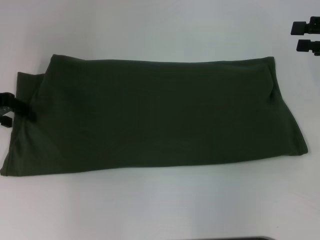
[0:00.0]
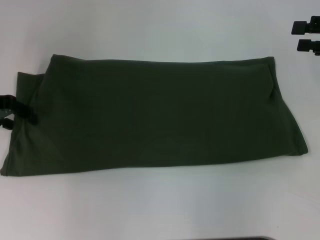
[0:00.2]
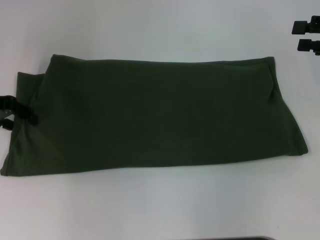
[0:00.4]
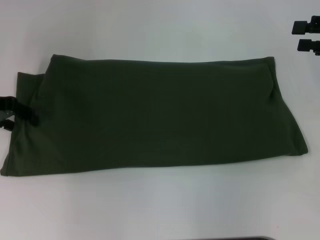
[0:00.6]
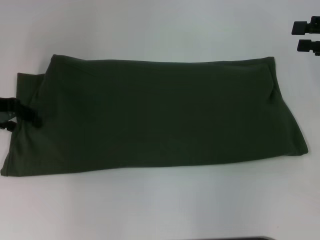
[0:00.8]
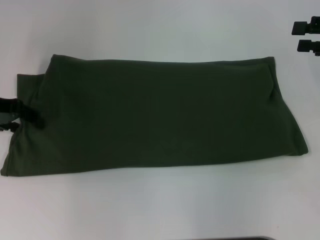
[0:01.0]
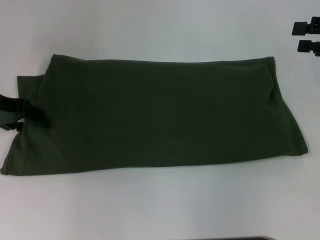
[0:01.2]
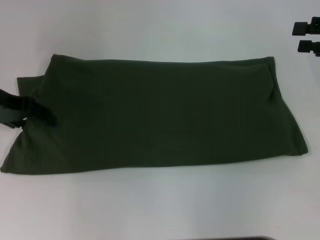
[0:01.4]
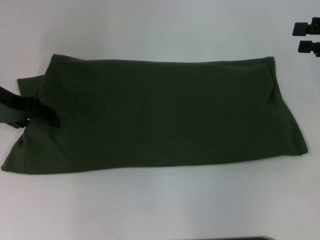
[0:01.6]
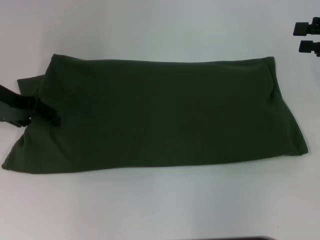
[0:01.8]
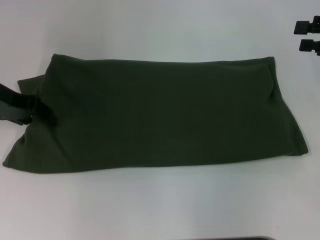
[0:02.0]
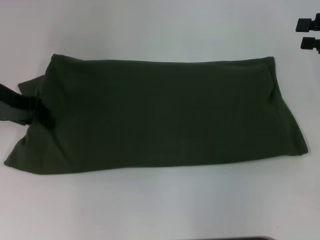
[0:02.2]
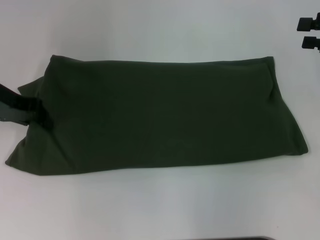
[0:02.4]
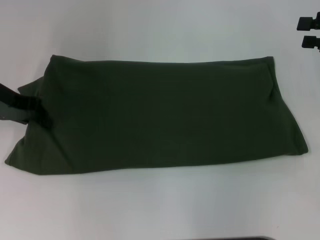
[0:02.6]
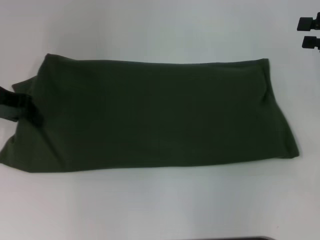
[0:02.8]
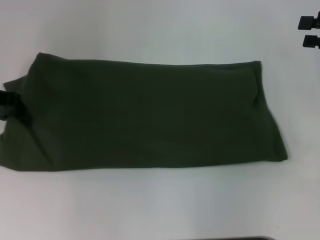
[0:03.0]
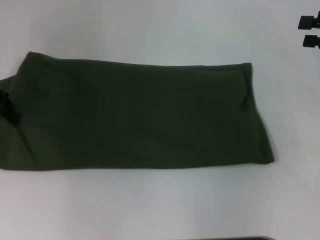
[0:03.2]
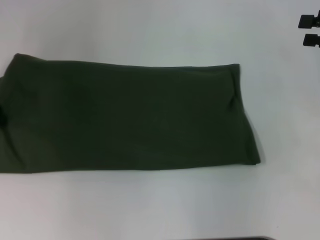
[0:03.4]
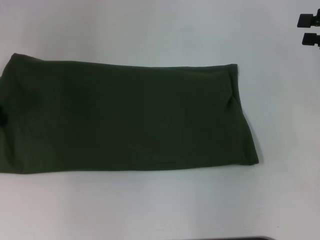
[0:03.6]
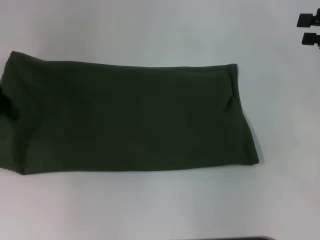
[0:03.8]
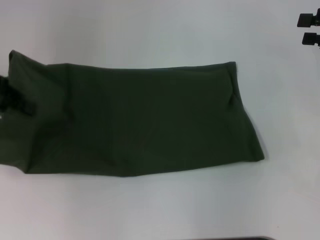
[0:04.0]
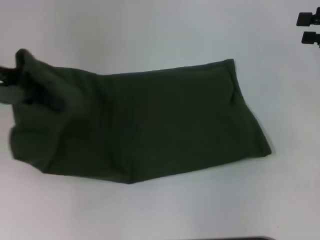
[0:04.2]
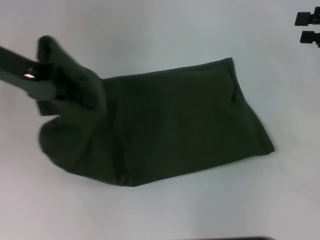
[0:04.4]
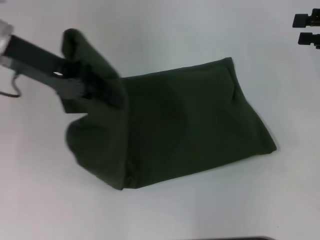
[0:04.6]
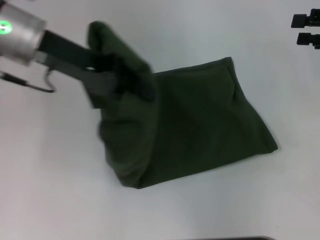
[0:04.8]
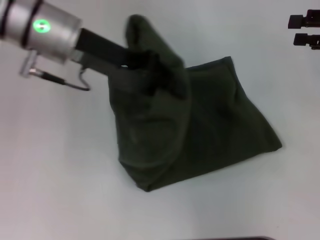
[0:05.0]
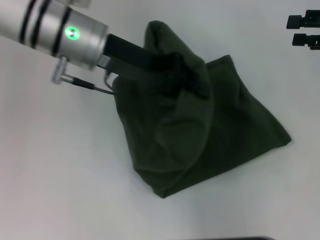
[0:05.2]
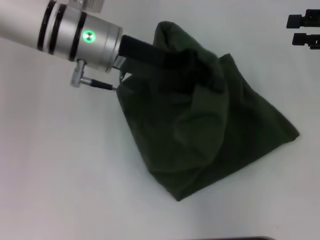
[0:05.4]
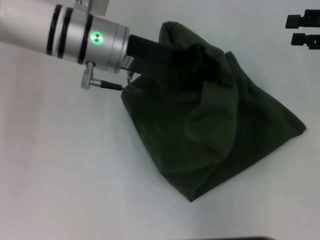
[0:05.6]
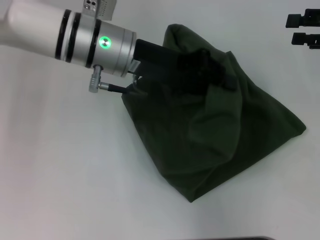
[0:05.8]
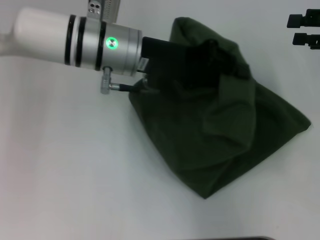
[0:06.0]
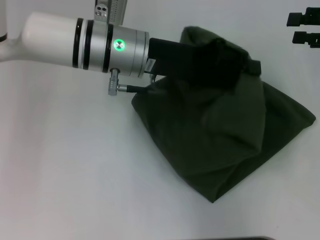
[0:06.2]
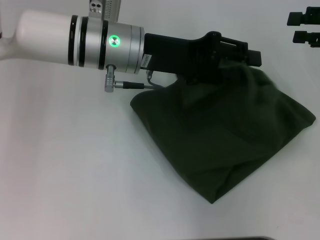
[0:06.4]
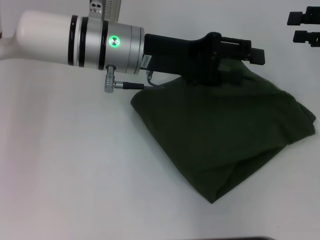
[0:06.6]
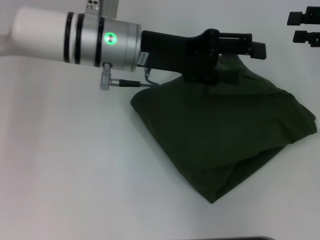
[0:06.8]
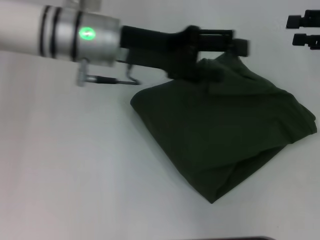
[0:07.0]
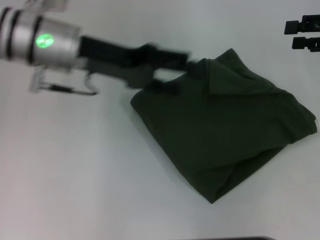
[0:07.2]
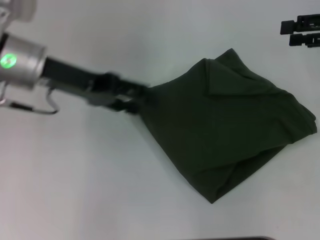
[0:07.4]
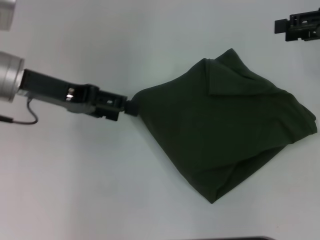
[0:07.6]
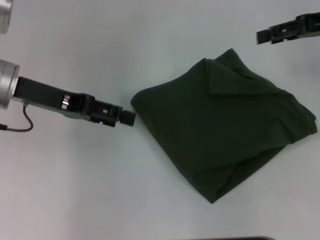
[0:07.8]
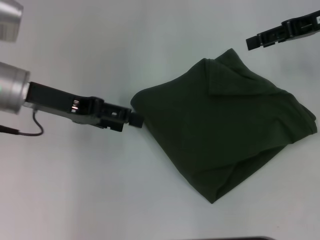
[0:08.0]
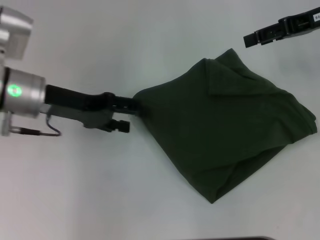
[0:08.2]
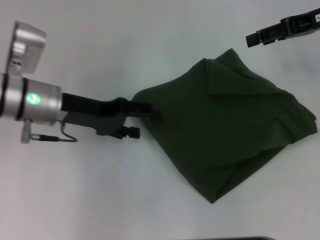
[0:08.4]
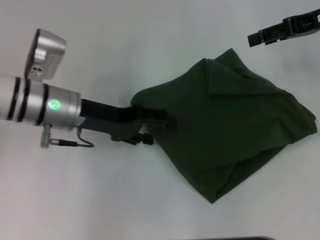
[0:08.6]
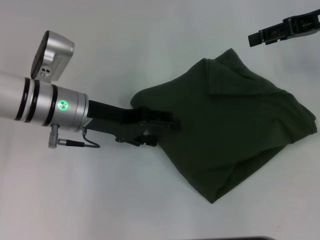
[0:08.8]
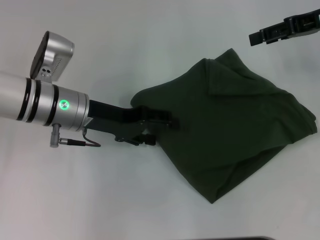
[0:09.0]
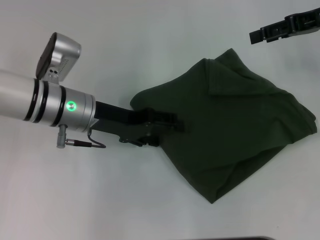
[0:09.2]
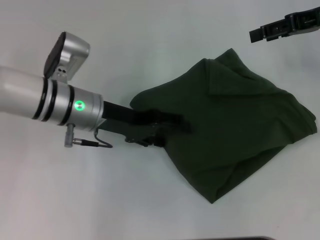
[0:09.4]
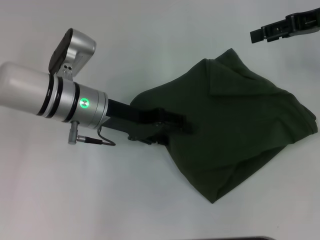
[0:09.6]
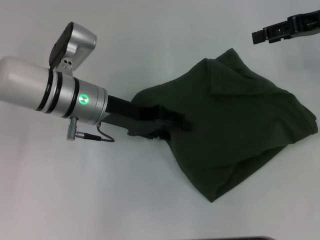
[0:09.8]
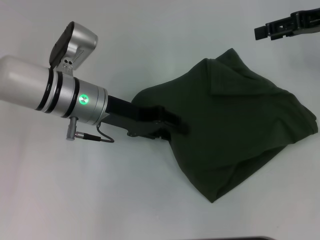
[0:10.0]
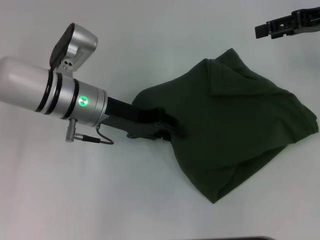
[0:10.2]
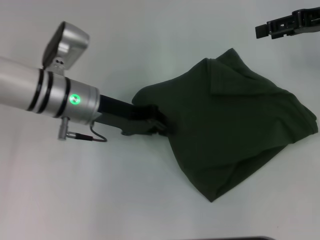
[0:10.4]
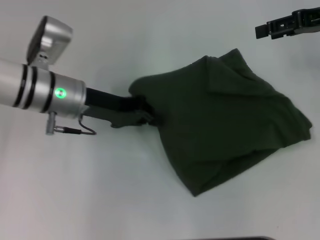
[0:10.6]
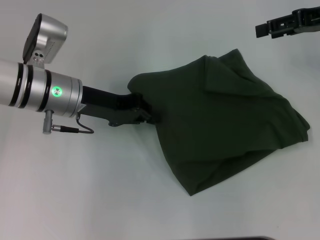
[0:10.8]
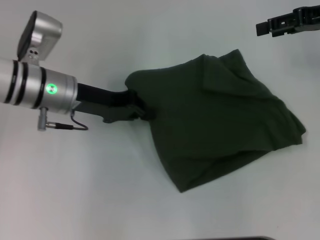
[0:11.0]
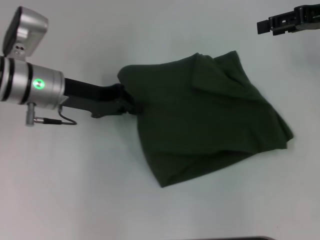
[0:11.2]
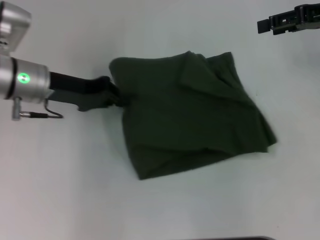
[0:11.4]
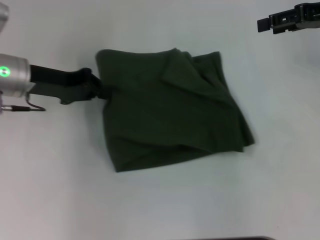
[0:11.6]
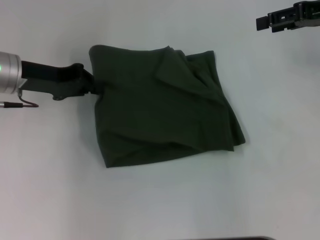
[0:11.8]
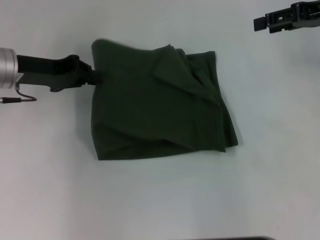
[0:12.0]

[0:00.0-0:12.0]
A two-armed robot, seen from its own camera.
Step, 0:00.0 to 0:06.6: Fold the clothes with your left hand.
0:00.0 to 0:01.6: The grippers stay close to where they were, moving slightly.
0:01.6 to 0:03.0: The left gripper closes.
0:03.0 to 0:04.4: The left gripper is displaced upward and to the right by approximately 10 cm.
0:04.4 to 0:06.0: The left gripper travels to the right by some 15 cm.
0:06.0 to 0:07.6: The left gripper moves to the left, roughly 15 cm, and opens up.
0:07.6 to 0:09.0: The right gripper ends up approximately 5 cm from where it was. The left gripper shifts roughly 10 cm downward and to the right.
0:09.0 to 0:10.4: The left gripper closes its fingers.
0:10.4 to 0:12.0: The left gripper goes roughly 10 cm to the left.

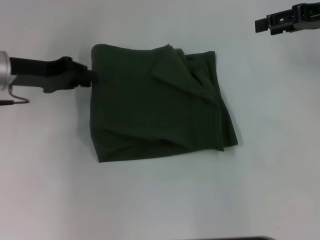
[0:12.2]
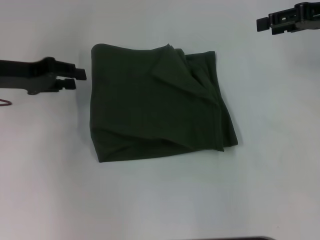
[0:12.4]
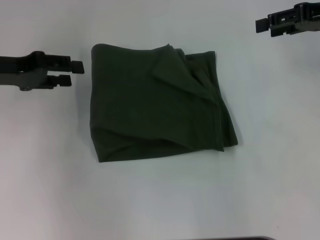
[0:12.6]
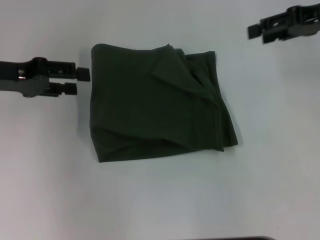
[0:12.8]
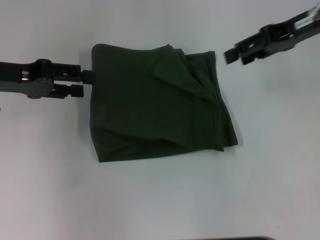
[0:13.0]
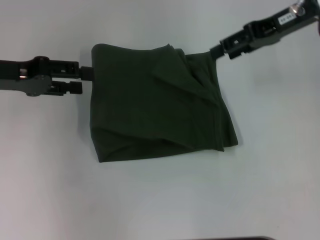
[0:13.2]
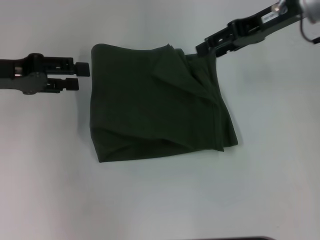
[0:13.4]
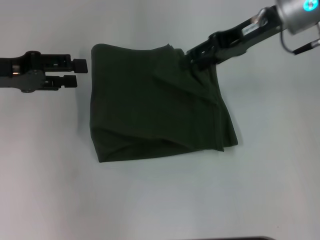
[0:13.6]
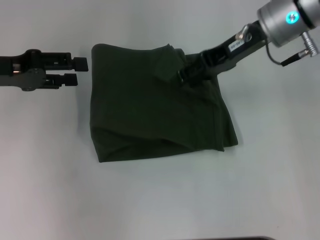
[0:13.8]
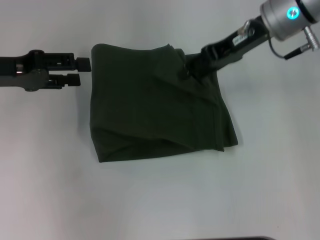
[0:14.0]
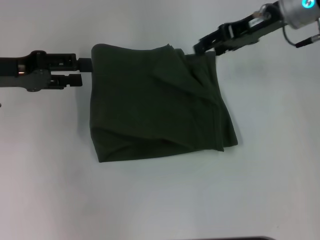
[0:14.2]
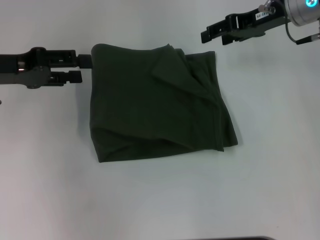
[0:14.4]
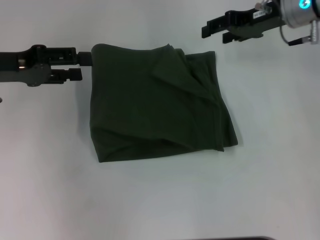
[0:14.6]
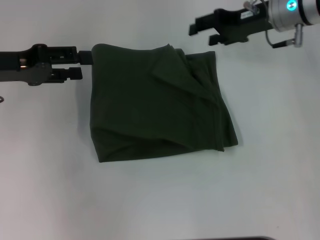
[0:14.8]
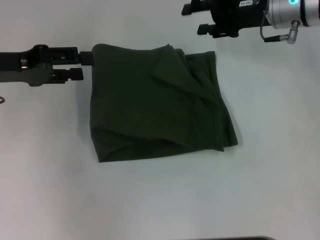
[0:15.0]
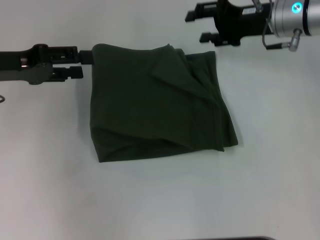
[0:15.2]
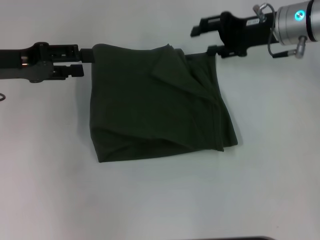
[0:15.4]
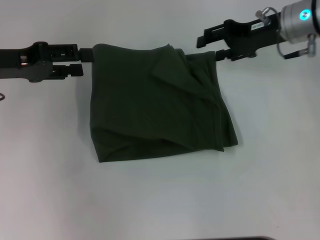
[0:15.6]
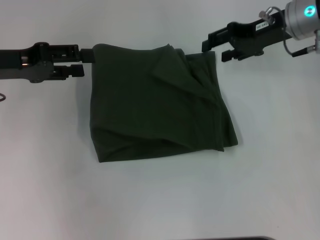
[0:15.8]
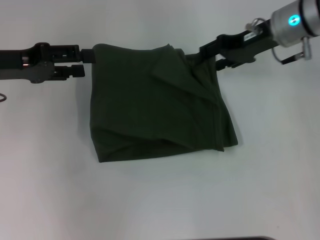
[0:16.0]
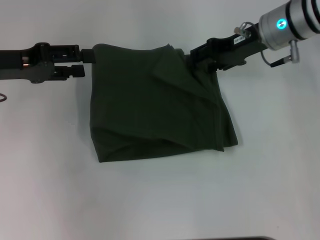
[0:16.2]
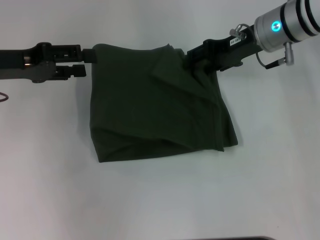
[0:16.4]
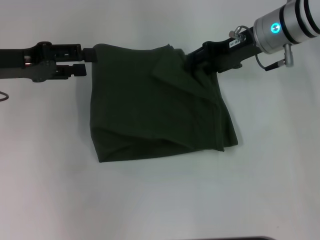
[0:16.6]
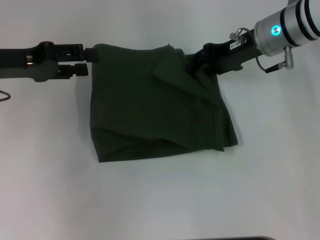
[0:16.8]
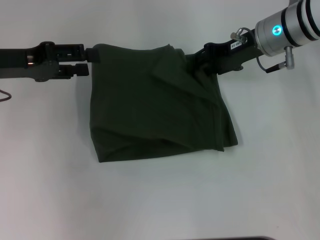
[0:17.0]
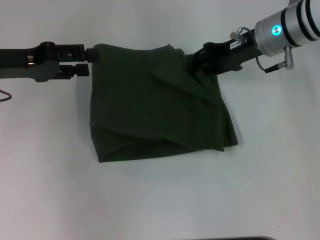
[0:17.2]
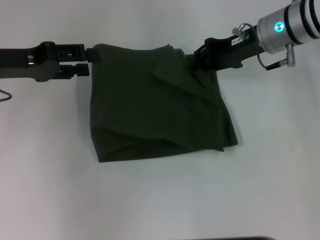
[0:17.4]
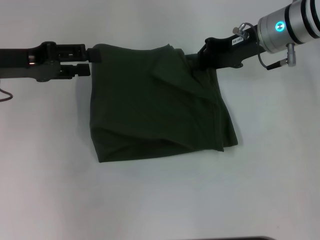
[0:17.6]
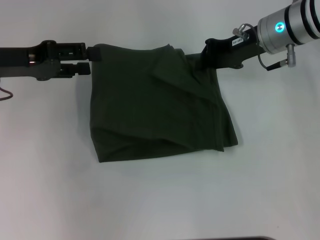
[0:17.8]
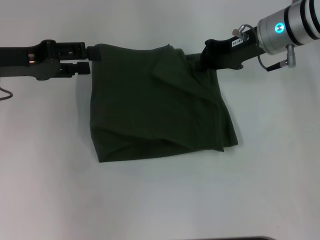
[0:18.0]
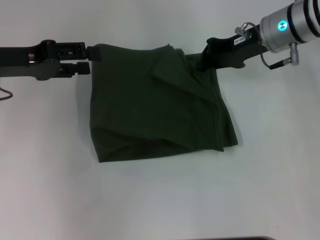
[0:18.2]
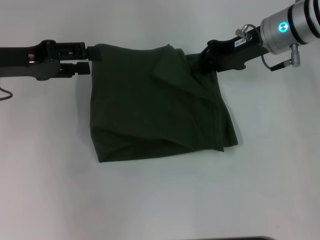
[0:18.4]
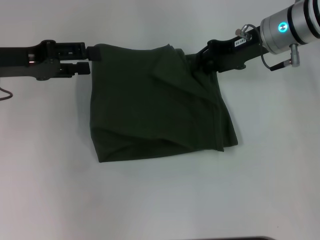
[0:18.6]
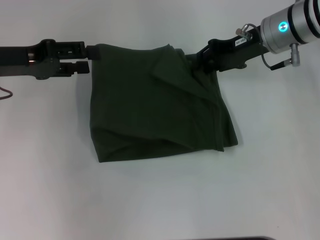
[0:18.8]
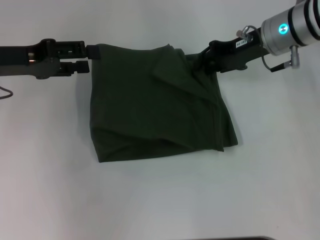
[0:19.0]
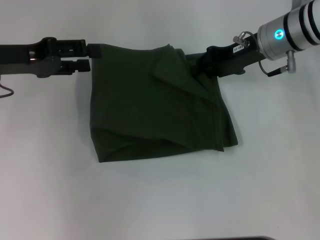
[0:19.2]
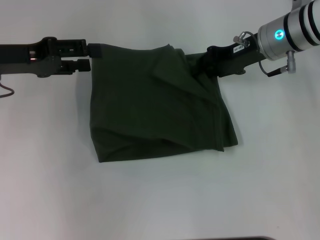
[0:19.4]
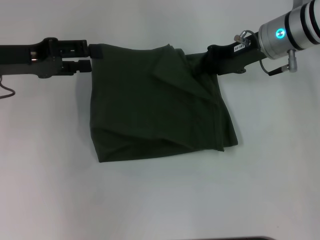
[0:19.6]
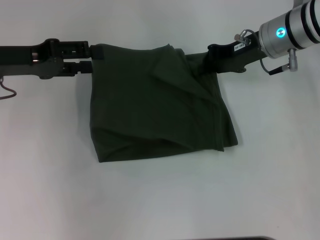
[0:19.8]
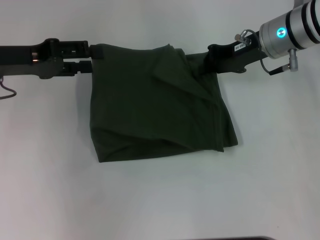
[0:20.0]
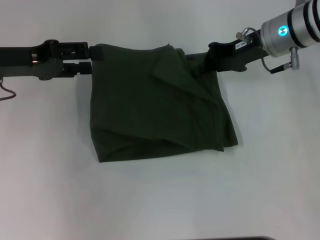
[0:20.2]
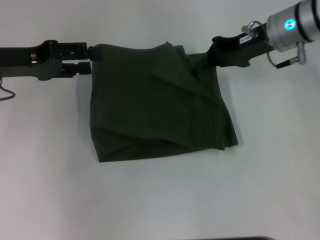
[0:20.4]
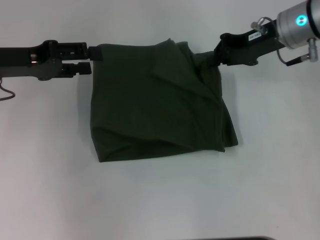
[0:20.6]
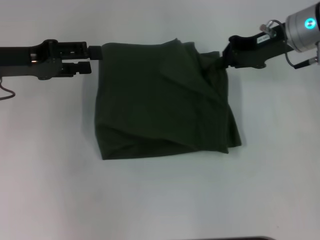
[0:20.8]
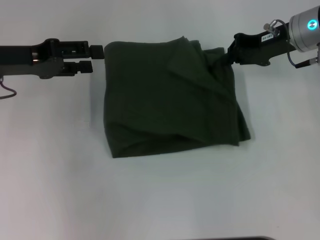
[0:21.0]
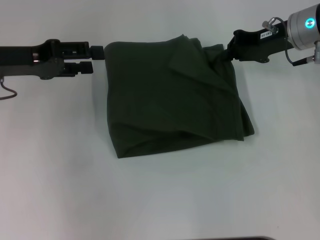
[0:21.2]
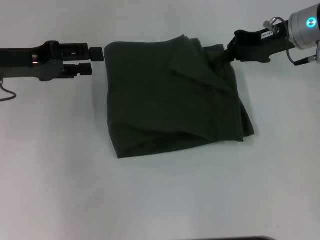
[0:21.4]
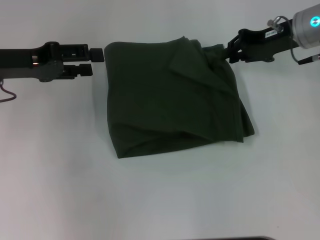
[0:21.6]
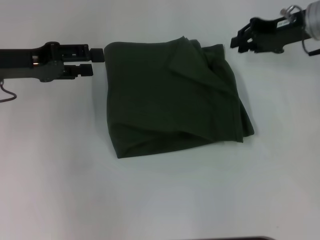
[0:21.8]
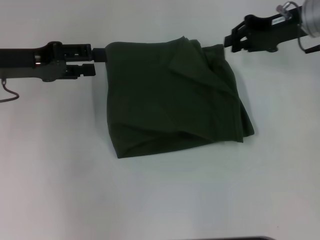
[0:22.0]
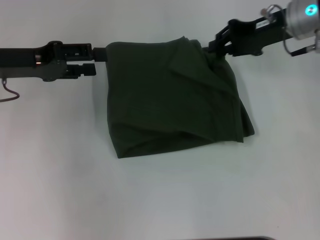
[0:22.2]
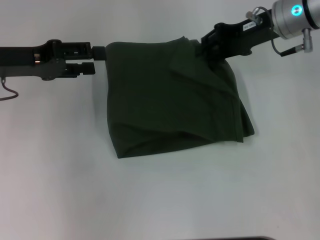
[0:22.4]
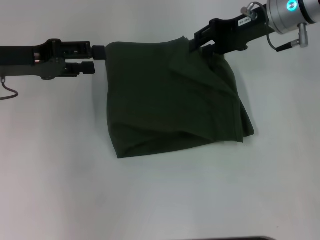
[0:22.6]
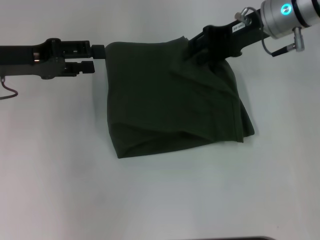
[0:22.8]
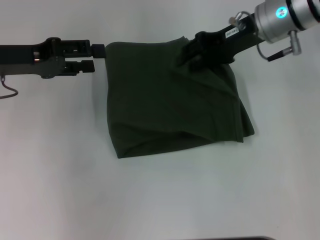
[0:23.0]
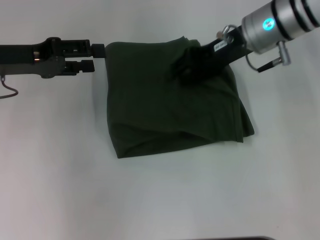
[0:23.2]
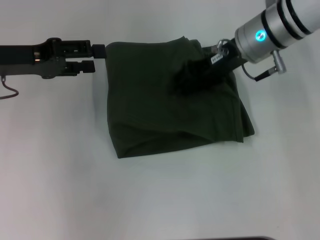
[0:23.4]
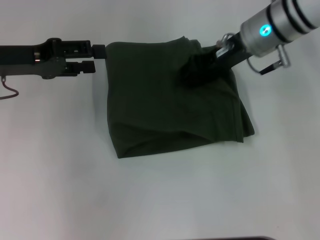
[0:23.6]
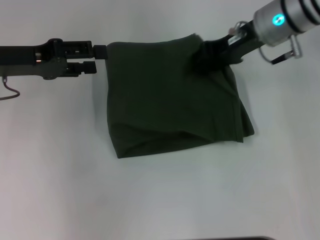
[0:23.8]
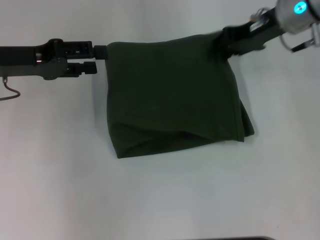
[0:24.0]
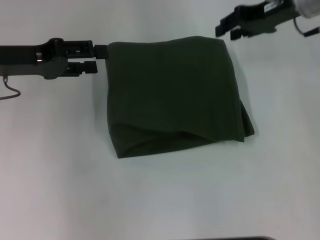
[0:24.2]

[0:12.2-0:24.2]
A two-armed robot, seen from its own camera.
0:12.2 to 0:13.8: The left gripper shifts by approximately 5 cm, and opens up, while the right gripper moves to the left, about 15 cm.
0:13.8 to 0:15.2: The right gripper goes roughly 5 cm downward.
0:16.6 to 0:18.2: The right gripper closes.
0:18.2 to 0:19.8: Both grippers stay about where they are.
0:19.8 to 0:21.2: The grippers move only a little.
0:21.2 to 0:22.6: The right gripper opens.
0:22.6 to 0:24.2: There are only small adjustments of the grippers.
